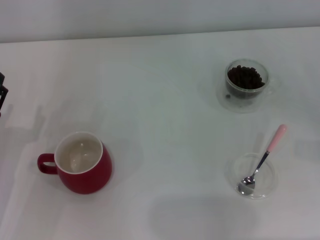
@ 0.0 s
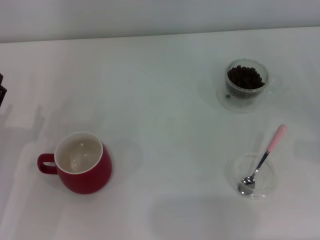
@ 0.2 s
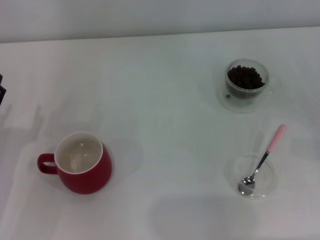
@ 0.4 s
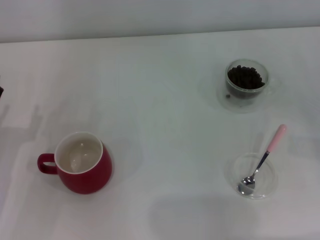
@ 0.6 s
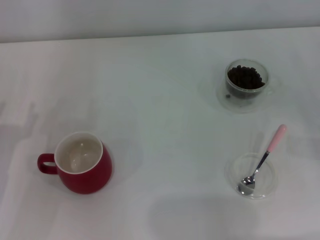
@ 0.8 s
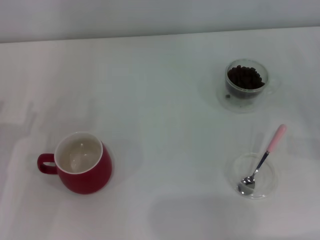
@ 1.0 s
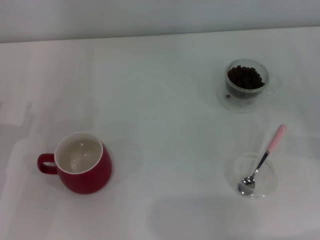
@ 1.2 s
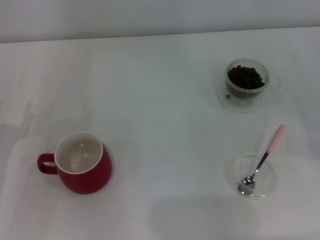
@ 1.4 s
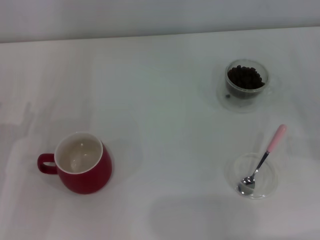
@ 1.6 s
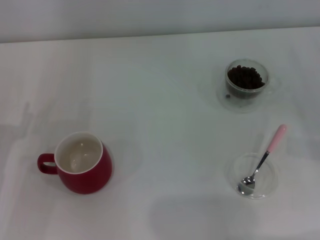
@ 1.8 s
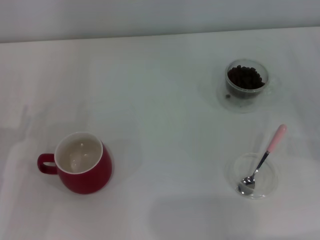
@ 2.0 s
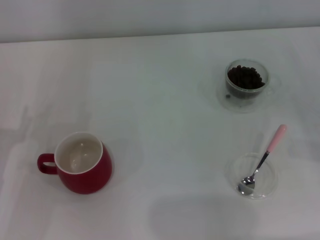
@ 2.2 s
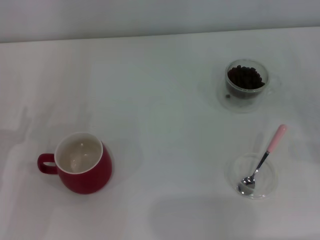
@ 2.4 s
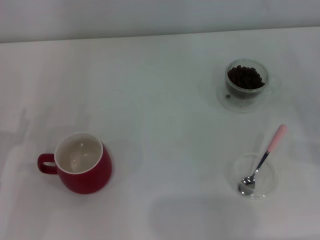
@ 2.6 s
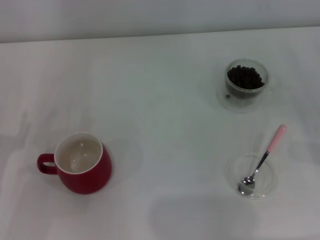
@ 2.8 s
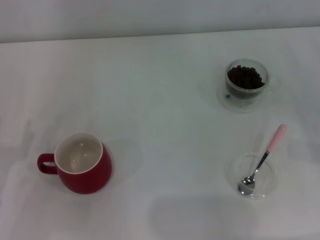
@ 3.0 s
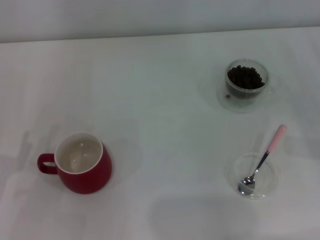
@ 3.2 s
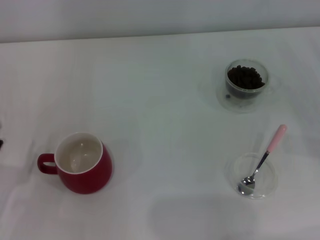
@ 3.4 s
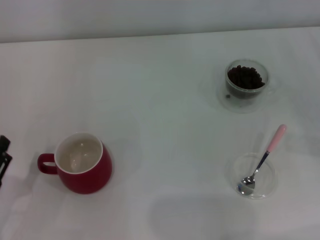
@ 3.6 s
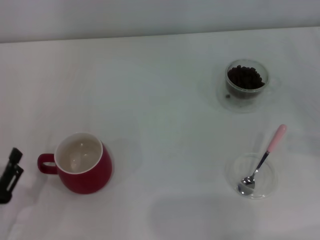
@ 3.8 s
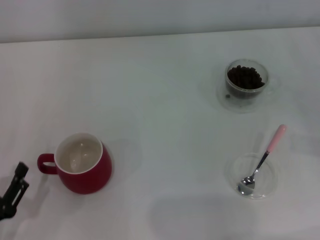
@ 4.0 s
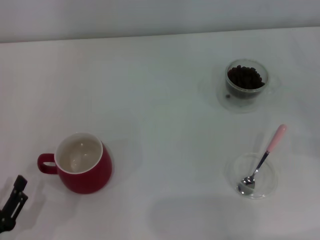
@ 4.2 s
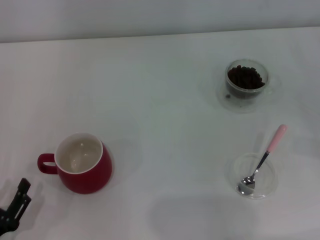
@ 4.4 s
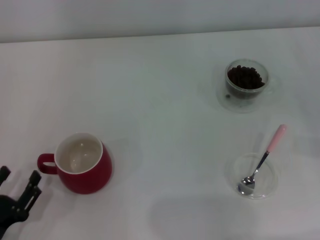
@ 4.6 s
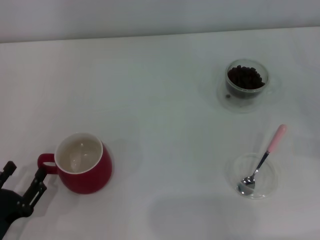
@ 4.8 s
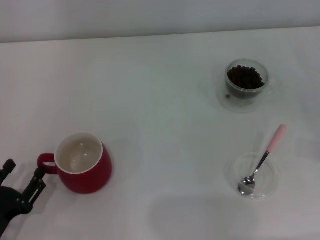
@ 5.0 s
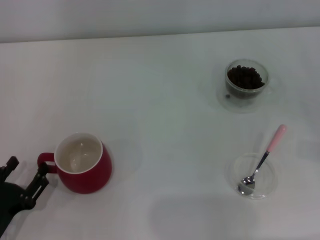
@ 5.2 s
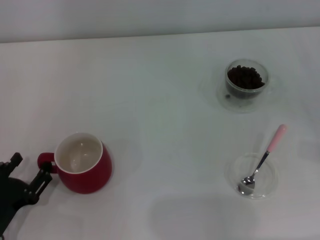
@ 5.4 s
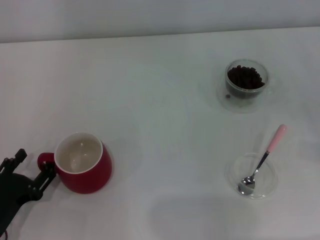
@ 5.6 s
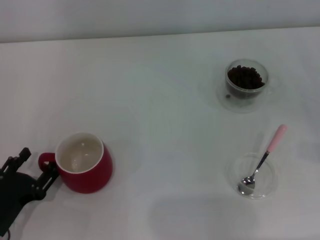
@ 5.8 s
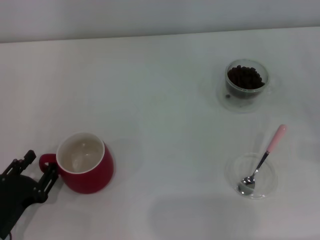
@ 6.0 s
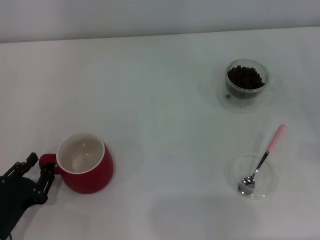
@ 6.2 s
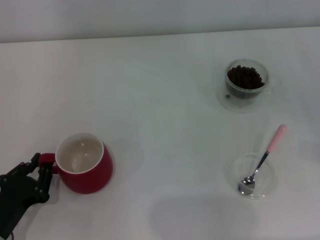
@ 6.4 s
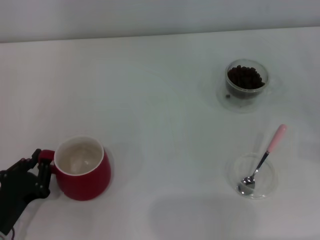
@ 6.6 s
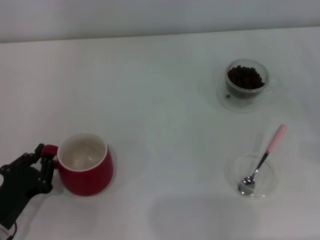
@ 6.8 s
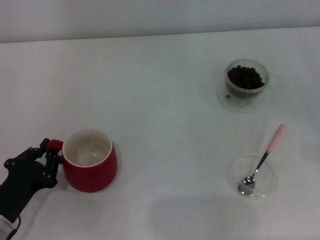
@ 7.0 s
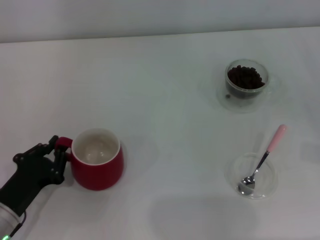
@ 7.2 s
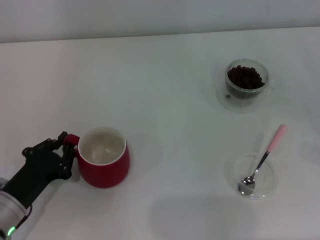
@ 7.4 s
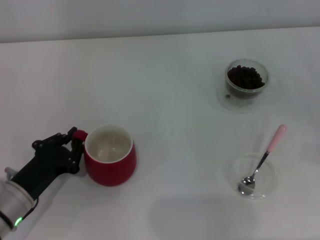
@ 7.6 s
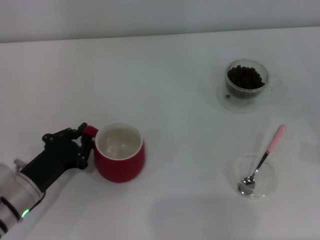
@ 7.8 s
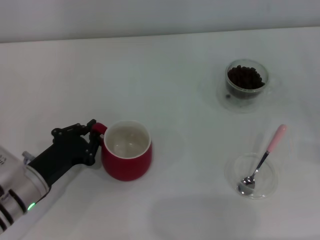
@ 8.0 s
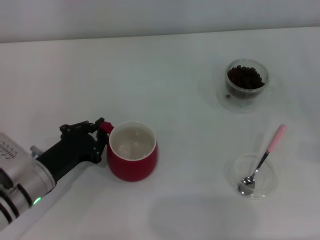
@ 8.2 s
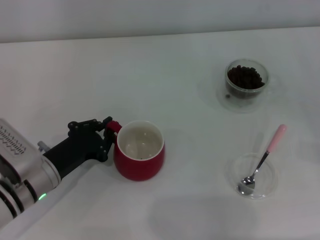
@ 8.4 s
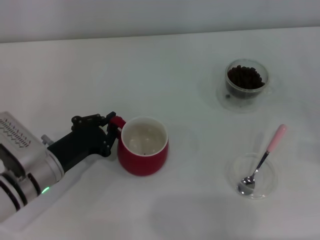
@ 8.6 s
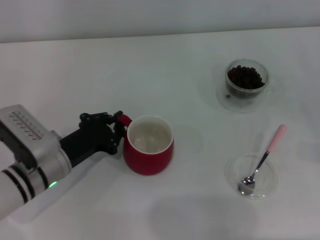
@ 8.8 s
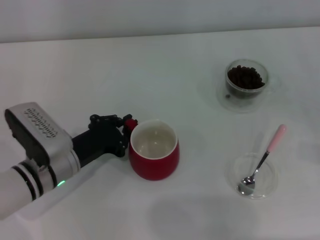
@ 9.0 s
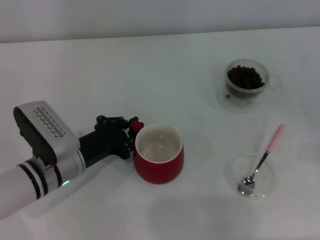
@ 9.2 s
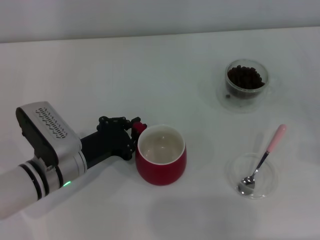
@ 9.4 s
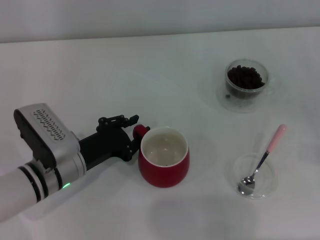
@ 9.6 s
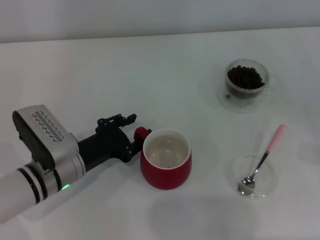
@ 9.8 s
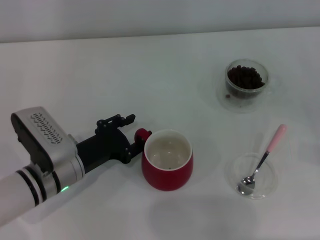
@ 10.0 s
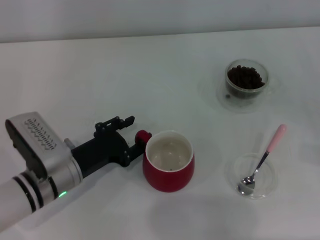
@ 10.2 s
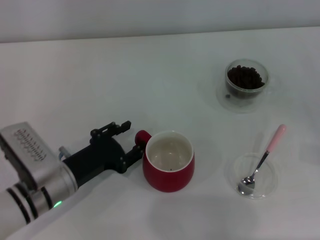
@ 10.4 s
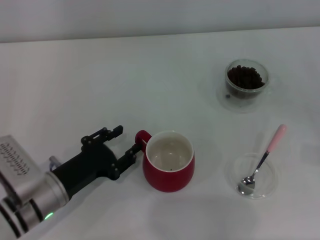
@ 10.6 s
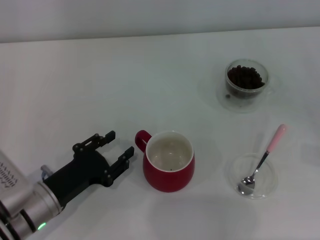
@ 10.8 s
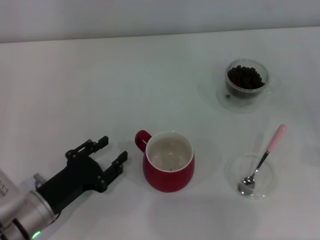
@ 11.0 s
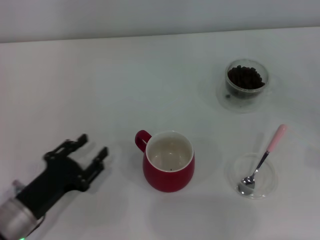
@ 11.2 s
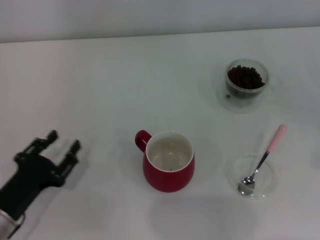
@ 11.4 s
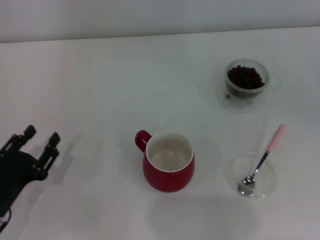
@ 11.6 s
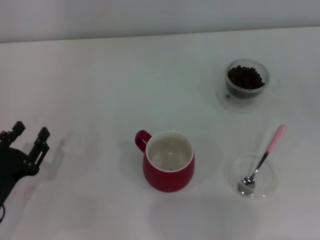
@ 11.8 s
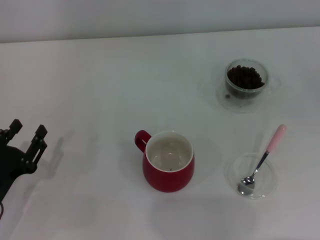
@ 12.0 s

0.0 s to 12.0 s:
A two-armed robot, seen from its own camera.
Task of the whole recording: Use a pink spoon to take out the coffee beans from the glass and pour them into the red cup.
Step, 0.0 to 10.6 s: Move the cup to the center of view with the left gripper.
3.0 to 4.4 s: The left gripper moves backward, roughly 10 cm.
4.4 to 6.0 s: The left gripper is displaced forward by approximately 5 cm.
6.0 to 7.6 s: The left gripper is displaced forward by some 5 cm, and closes up.
7.6 to 9.0 s: The left gripper moves to the right and forward, about 10 cm.
9.0 to 10.4 s: The left gripper opens its fingers.
10.4 to 12.0 s: The right gripper travels to the right by roughly 5 cm. Meanwhile the left gripper shifts some 10 cm to the left and backward.

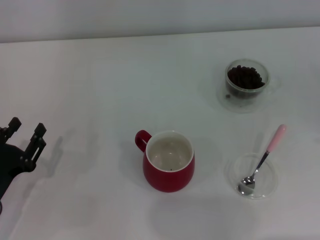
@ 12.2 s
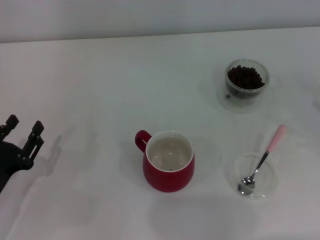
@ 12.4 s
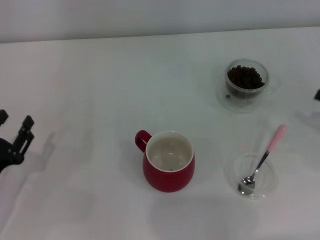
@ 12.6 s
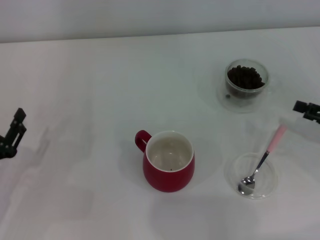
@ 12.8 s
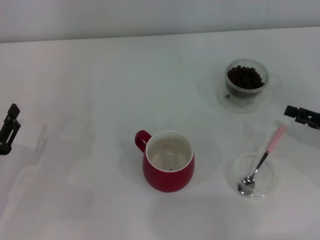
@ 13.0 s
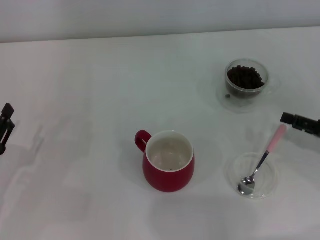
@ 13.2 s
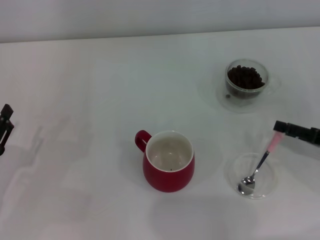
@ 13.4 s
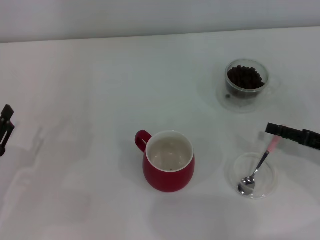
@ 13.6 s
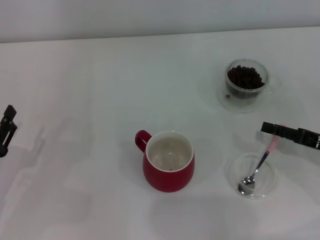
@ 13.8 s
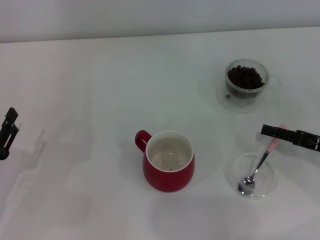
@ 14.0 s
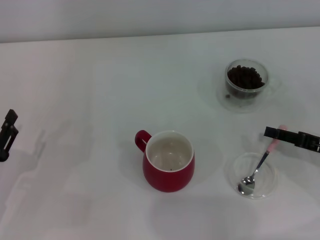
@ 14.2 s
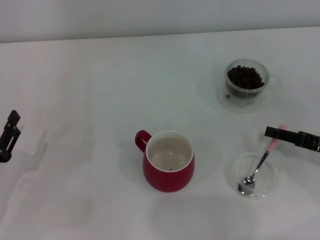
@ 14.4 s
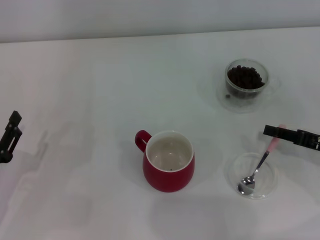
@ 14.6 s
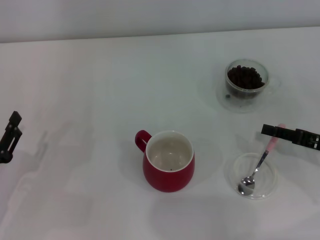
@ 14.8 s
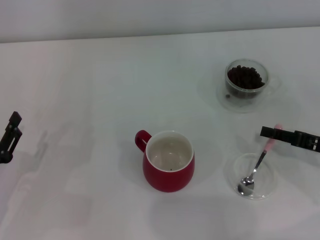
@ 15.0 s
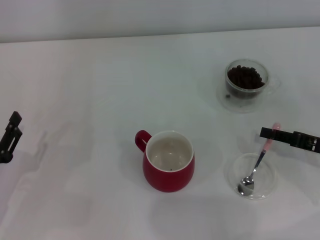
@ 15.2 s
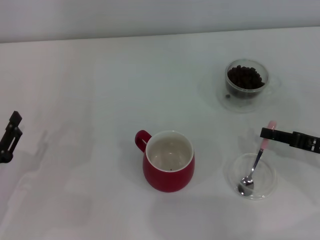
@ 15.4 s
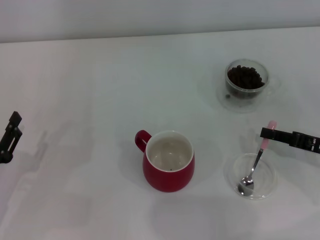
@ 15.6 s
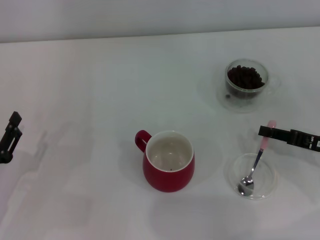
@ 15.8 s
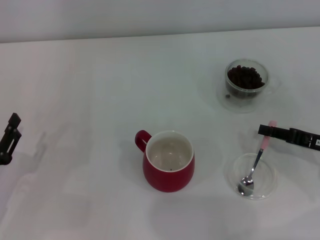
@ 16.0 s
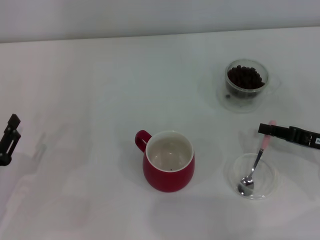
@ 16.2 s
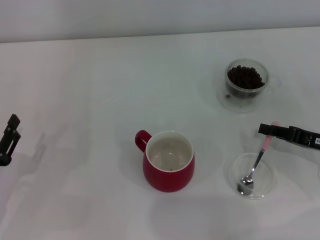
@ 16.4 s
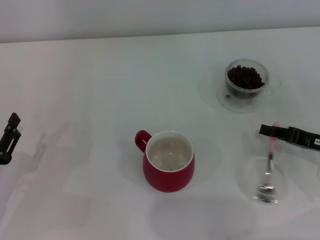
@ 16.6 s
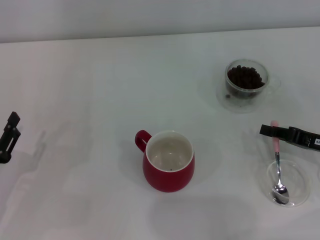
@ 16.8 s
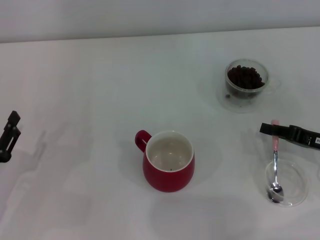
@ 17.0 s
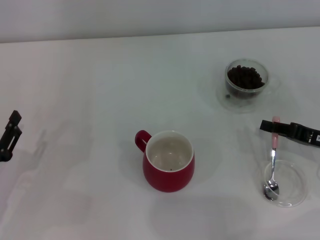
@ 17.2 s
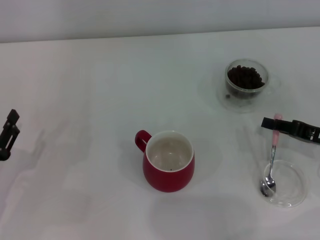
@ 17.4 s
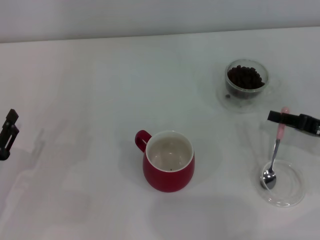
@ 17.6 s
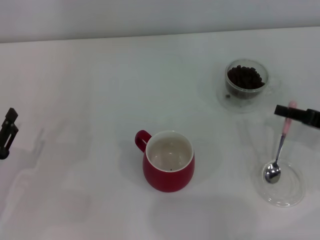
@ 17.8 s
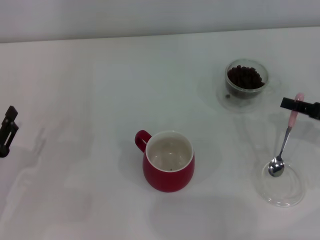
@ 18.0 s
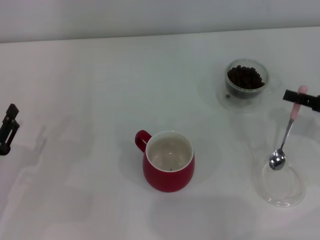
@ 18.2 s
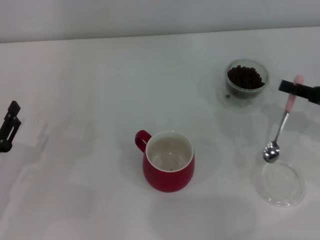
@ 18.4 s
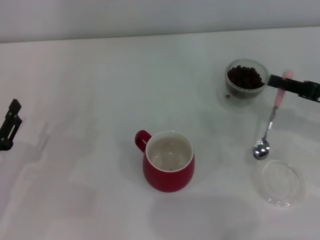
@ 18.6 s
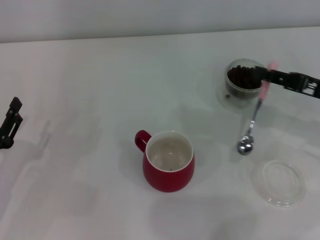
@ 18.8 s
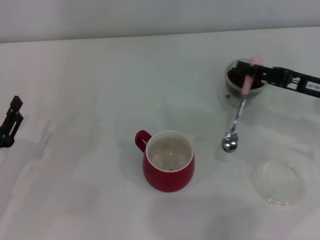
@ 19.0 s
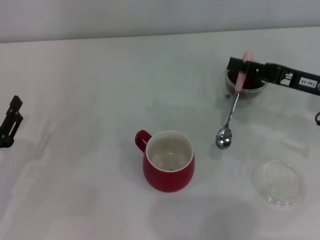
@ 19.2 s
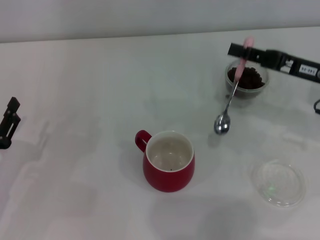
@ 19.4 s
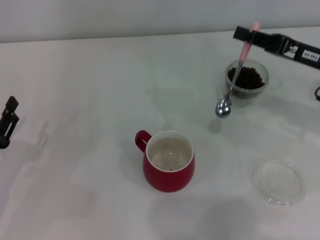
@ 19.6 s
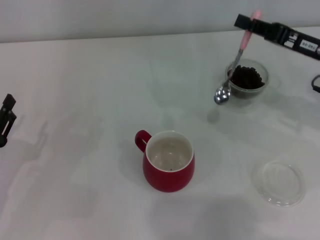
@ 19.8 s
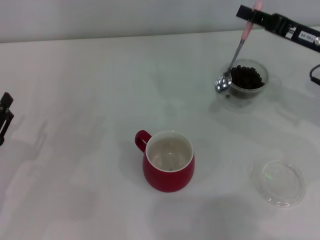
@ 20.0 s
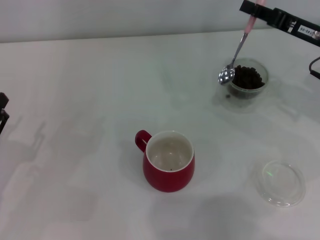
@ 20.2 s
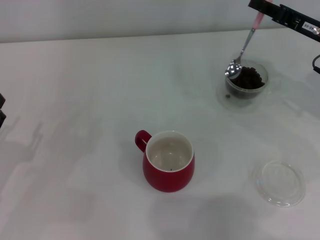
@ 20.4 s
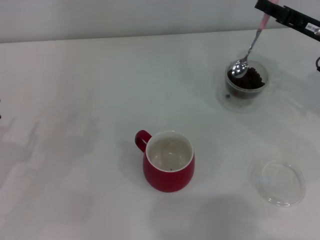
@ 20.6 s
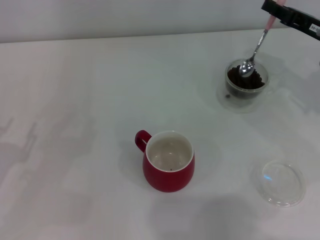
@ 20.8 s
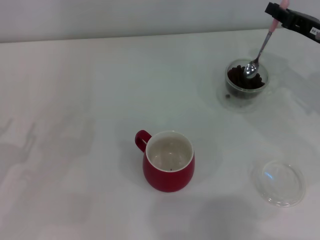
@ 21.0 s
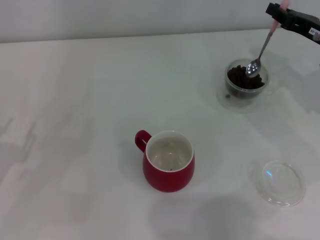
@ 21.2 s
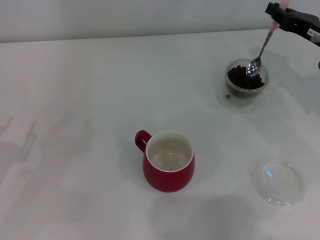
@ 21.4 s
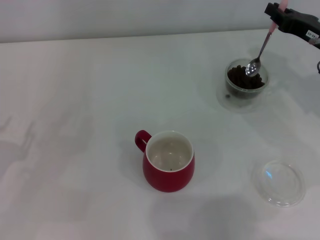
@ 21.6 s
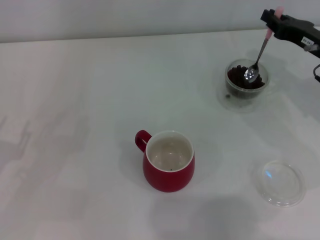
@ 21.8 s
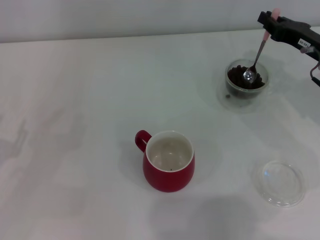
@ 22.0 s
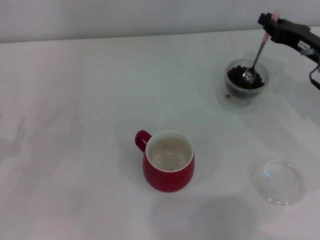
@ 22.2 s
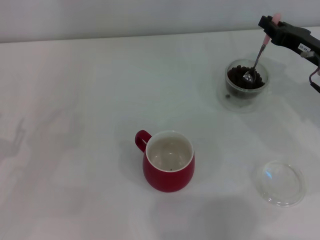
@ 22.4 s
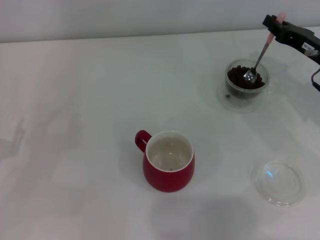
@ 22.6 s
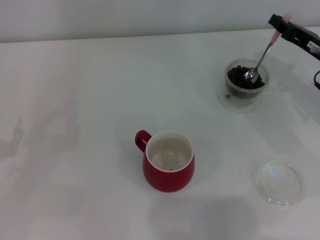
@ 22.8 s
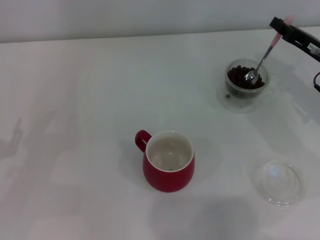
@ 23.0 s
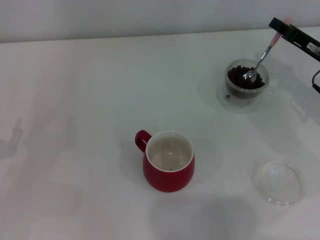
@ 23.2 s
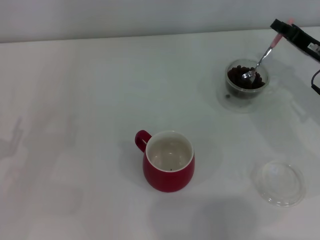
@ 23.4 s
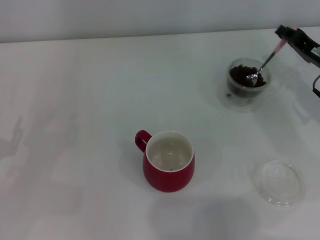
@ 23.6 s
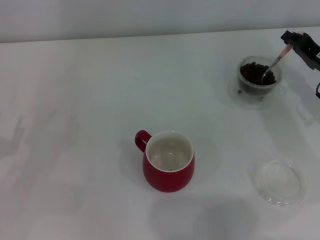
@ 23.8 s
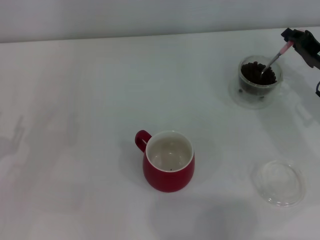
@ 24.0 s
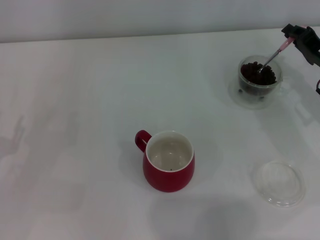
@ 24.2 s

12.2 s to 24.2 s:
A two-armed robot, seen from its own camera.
Task of the whole recording: Use a pink spoon to take out the coffee beans from the glass and pour them into the red cup.
Step, 12.2 to 18.4 s: Pick up the spoon with the right gripper.
12.2 to 13.8 s: The right gripper heads to the left, covering roughly 10 cm.
13.8 to 15.2 s: The right gripper closes.
15.2 to 16.6 s: Both grippers stay about where they are.
16.6 to 18.2 s: The right gripper ends up about 5 cm from where it was.
18.2 to 19.8 s: The right gripper is displaced forward, to the left and upward by approximately 10 cm.
21.2 to 22.6 s: The grippers make only small movements.
